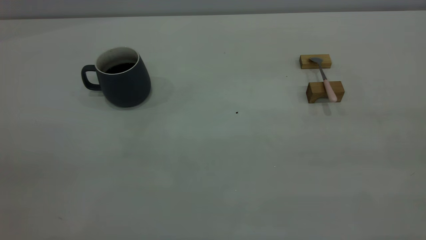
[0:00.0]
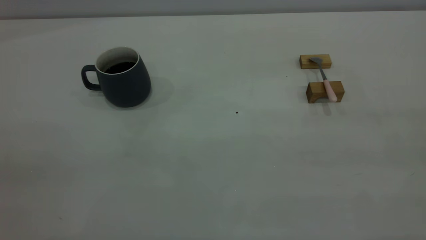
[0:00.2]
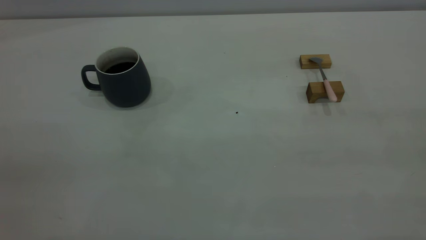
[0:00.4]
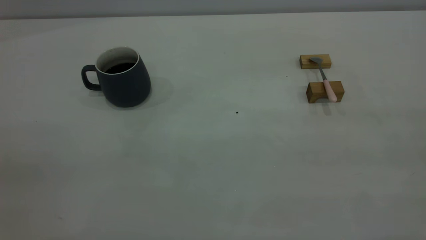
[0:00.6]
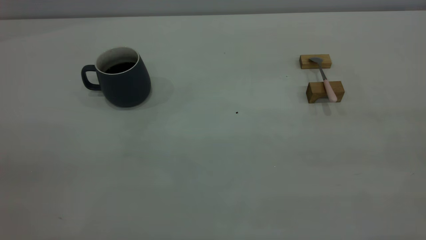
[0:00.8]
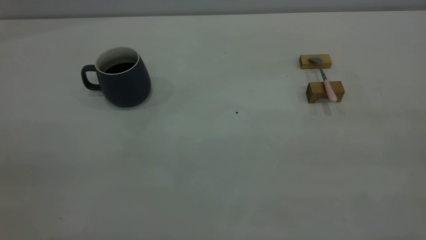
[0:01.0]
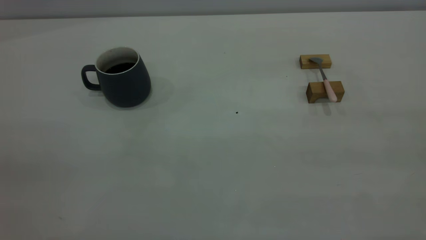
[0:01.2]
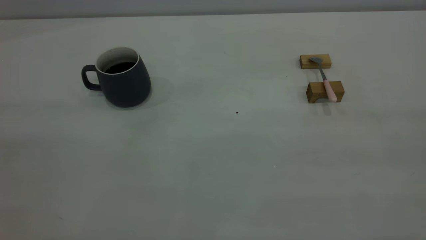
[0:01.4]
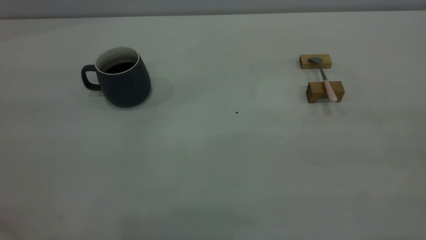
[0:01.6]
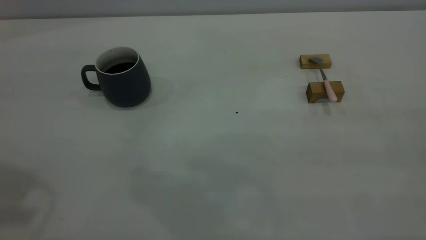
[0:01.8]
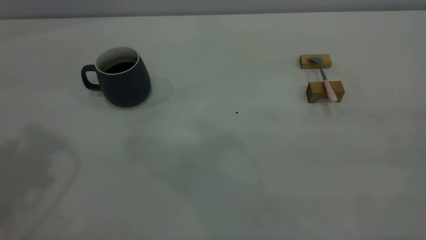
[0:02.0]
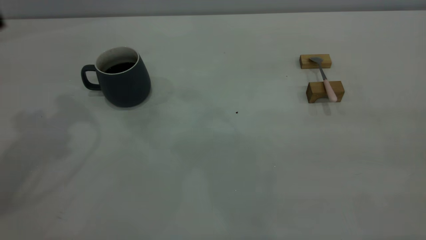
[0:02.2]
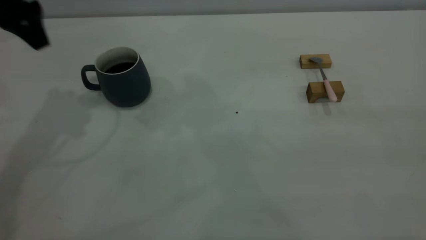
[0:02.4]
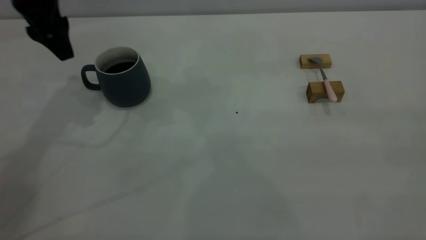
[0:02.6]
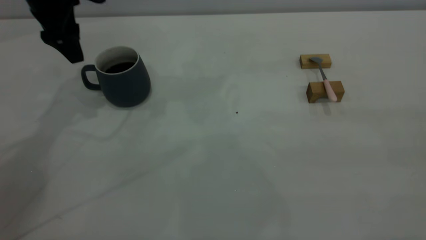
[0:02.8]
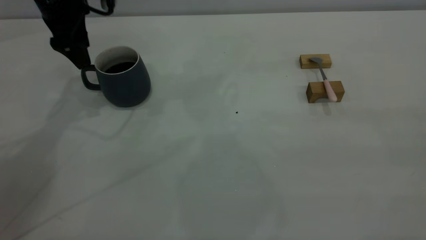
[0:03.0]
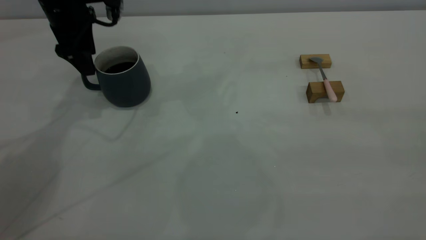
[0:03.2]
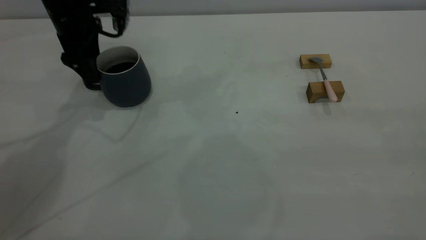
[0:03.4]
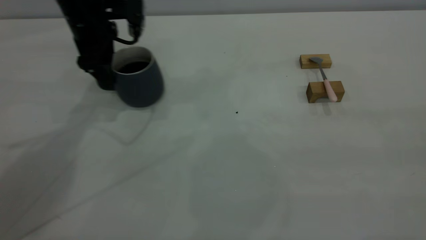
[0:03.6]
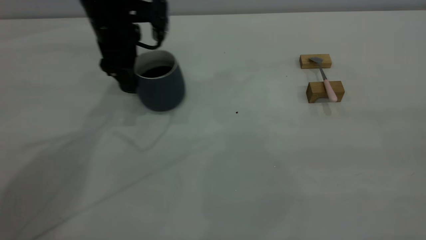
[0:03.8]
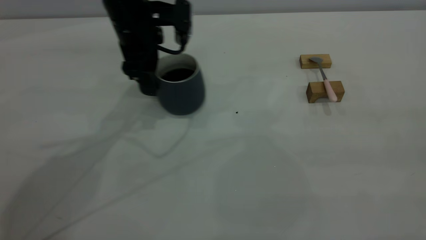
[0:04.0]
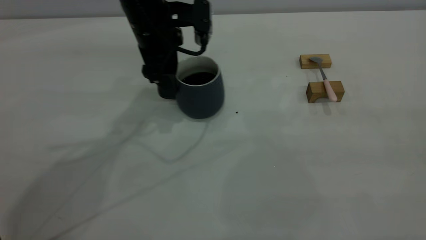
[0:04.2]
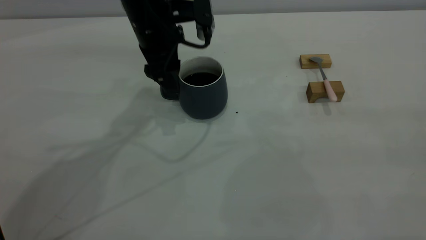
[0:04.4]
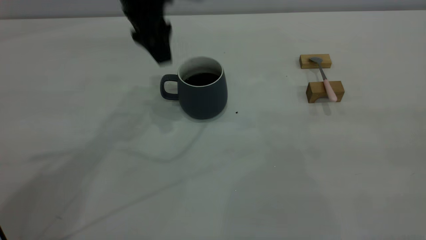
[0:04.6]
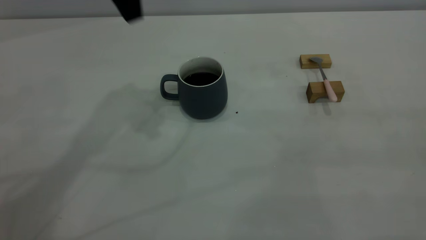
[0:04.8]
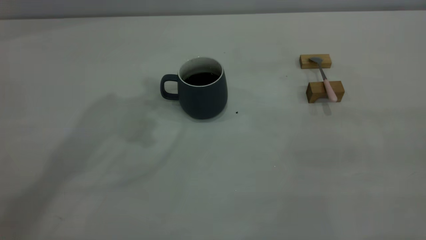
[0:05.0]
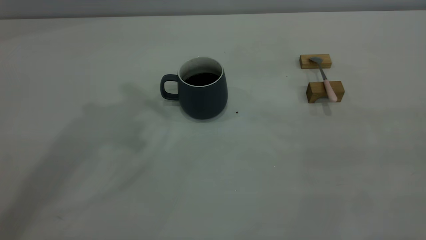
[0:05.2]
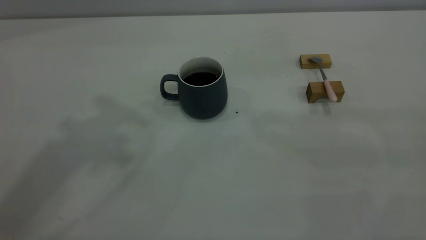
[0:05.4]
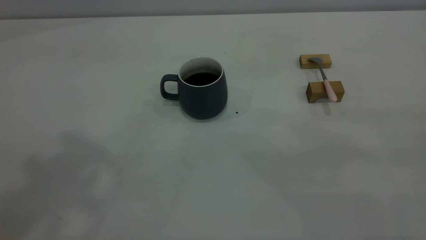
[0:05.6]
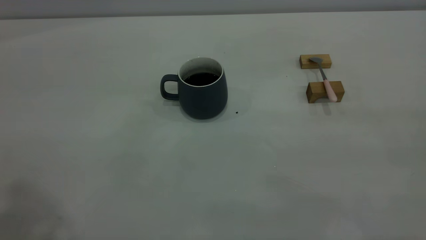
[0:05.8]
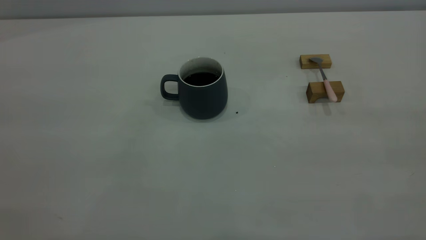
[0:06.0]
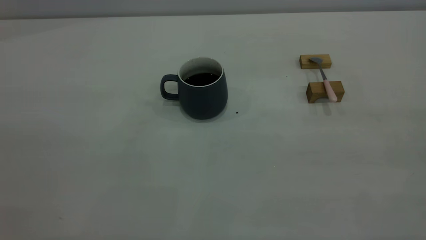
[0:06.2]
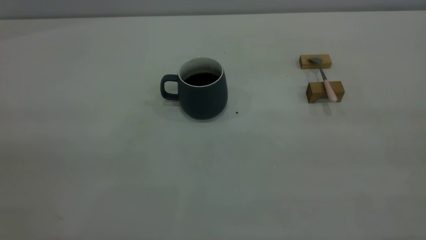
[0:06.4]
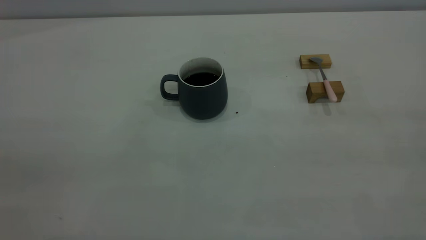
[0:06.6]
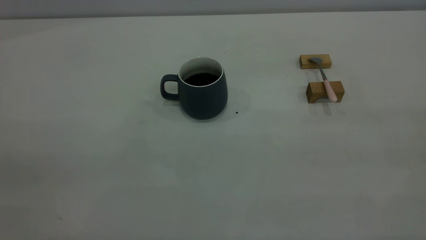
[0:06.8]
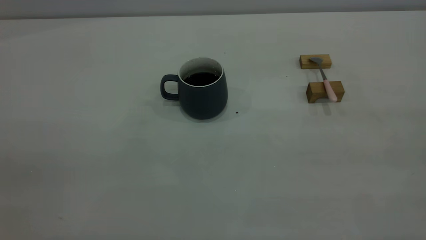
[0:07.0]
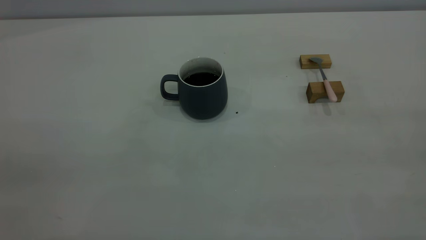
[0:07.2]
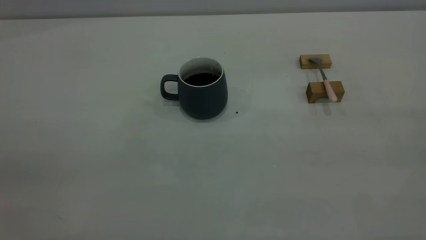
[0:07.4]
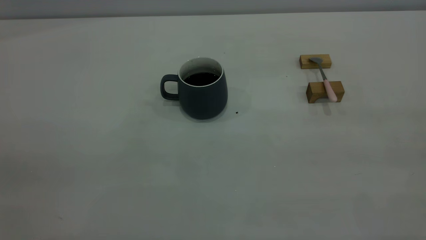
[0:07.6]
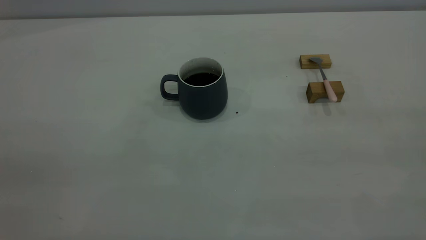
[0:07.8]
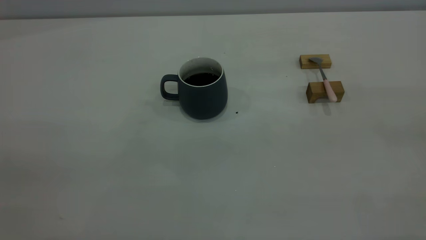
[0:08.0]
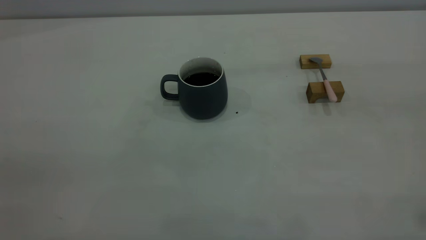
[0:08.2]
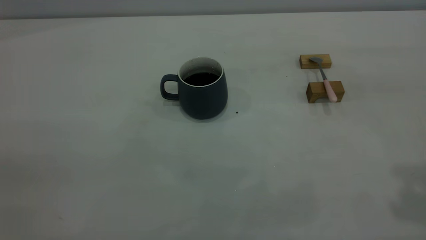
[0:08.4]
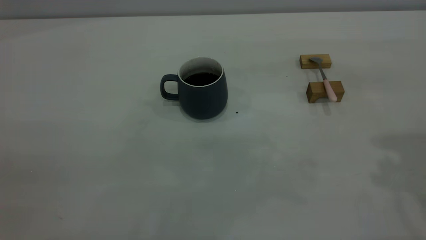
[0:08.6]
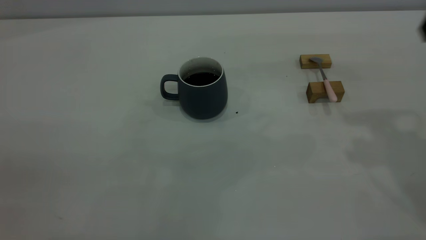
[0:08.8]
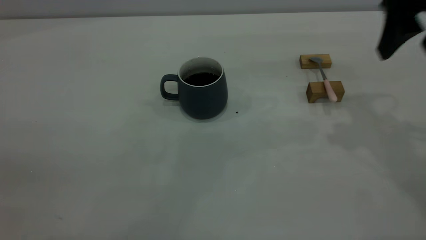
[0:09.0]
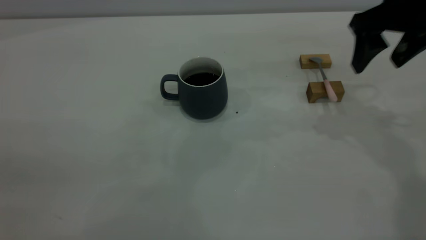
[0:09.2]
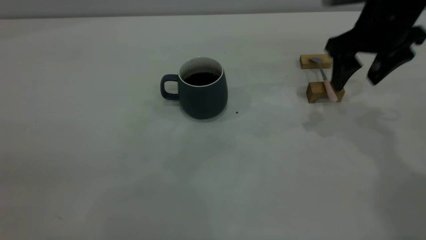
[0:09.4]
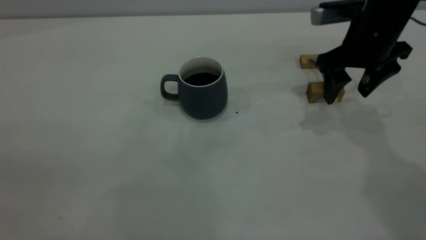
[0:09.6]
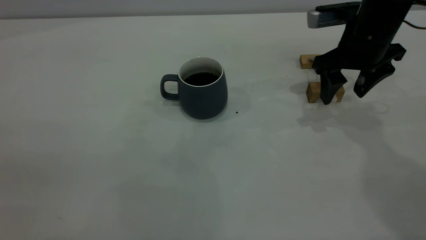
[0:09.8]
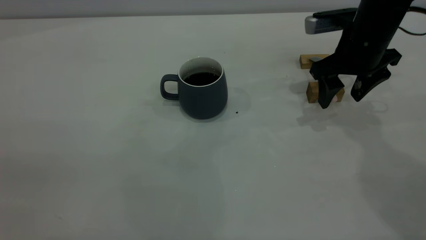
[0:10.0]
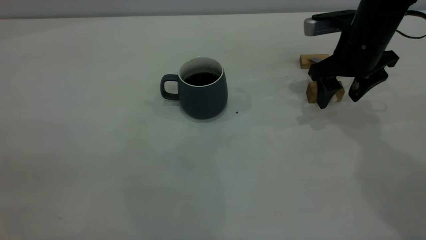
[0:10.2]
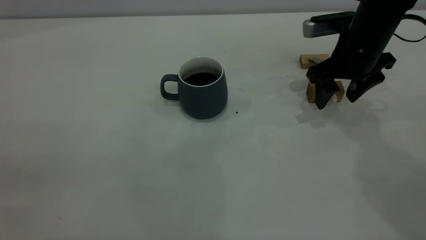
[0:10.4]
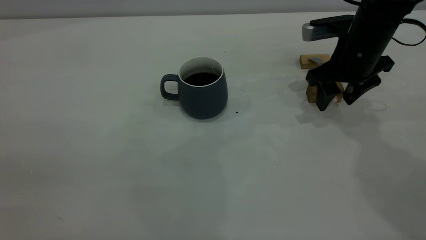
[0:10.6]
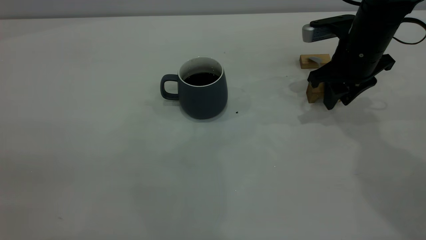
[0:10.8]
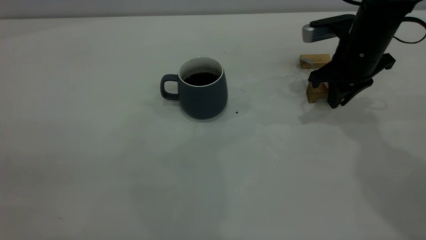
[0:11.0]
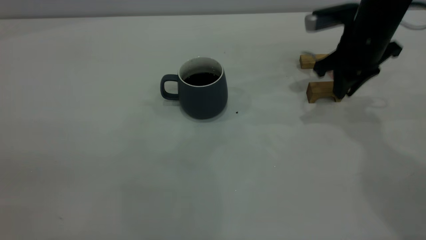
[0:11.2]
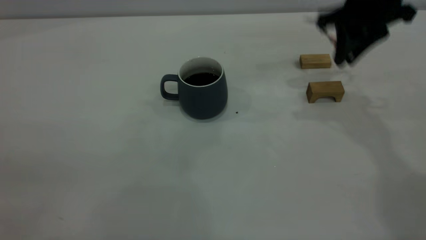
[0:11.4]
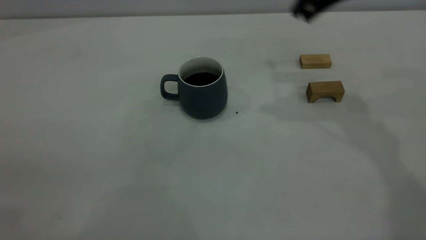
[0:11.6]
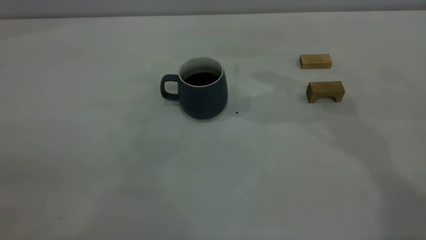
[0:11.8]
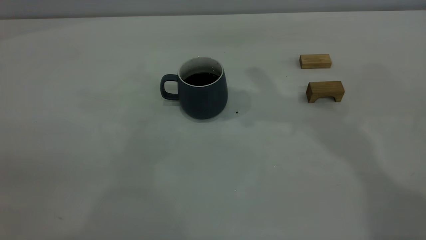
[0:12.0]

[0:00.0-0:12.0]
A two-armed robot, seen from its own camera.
Step, 0:00.0 to 0:04.6: Move the cup with coffee to the center of view.
Step, 0:04.8 to 0:11.2: Pick up the spoon.
0:01.6 to 0:03.0: The left gripper is displaced forward and downward by about 40 cm, and opens its fingers.
0:03.0 to 0:04.4: The left gripper moves to the right, roughly 15 cm.
0:04.4 to 0:06.0: The left gripper moves backward, upward and to the left, approximately 50 cm.
0:07.6 to 0:09.0: The right gripper heads forward, covering about 35 cm, and opens its fingers.
0:09.0 to 0:10.4: The right gripper heads downward and forward, covering about 15 cm.
0:10.4 to 0:12.0: The right gripper moves upward and to the left, about 25 cm, and closes its fingers.

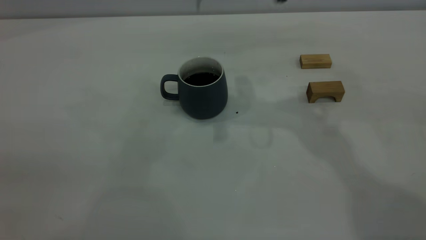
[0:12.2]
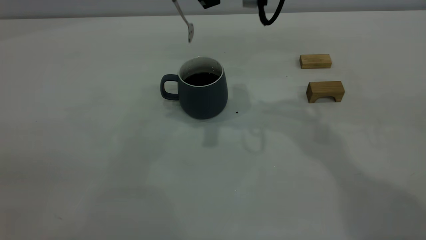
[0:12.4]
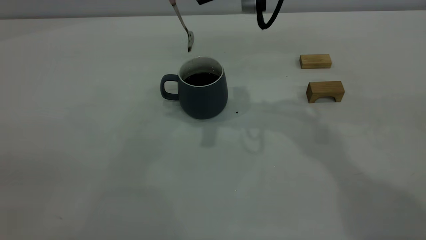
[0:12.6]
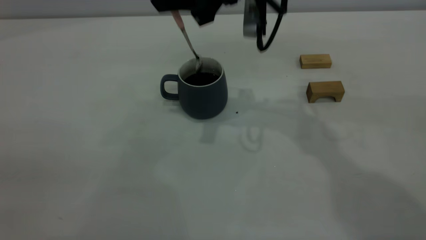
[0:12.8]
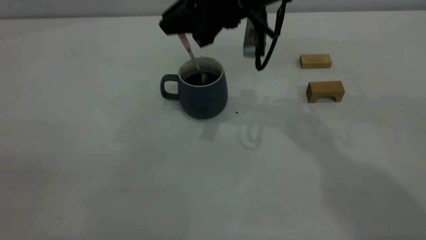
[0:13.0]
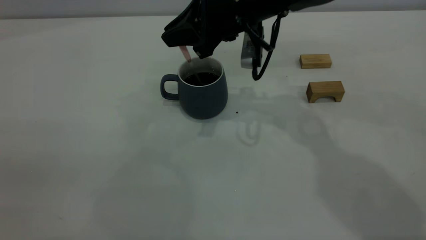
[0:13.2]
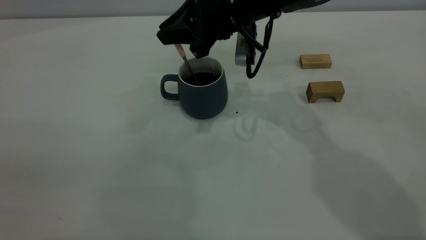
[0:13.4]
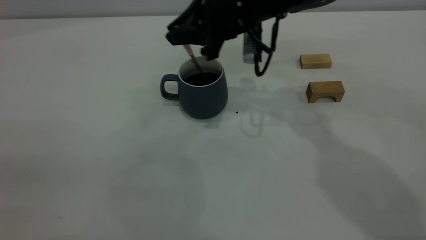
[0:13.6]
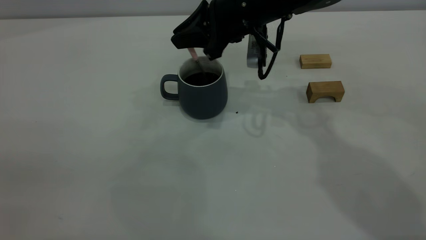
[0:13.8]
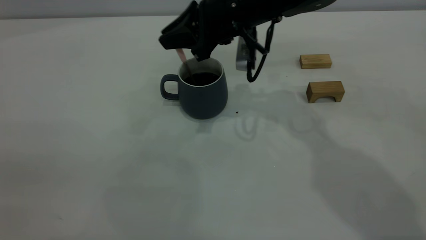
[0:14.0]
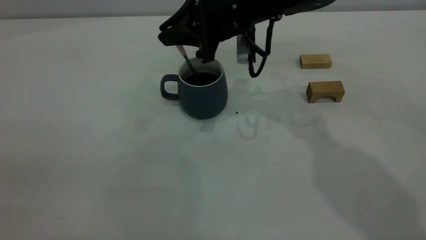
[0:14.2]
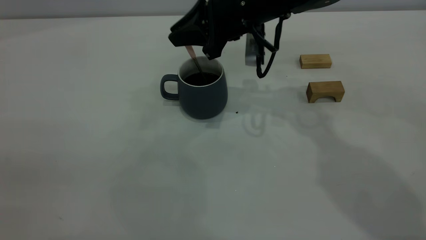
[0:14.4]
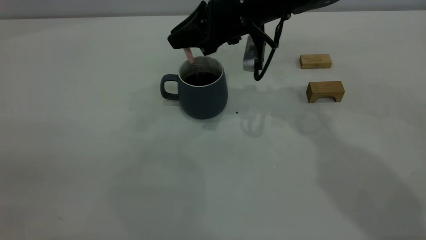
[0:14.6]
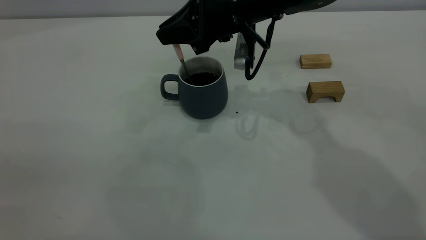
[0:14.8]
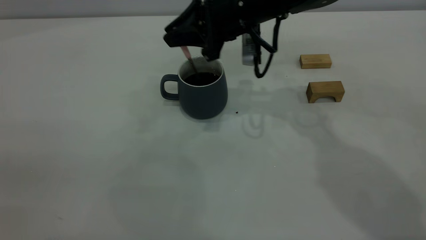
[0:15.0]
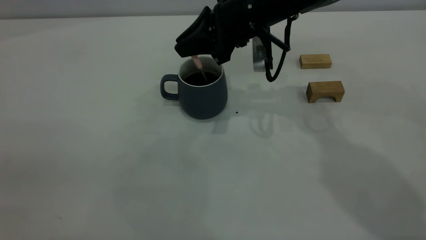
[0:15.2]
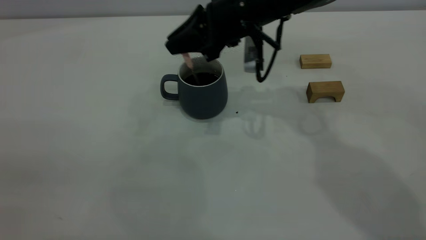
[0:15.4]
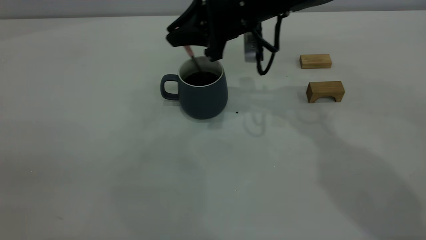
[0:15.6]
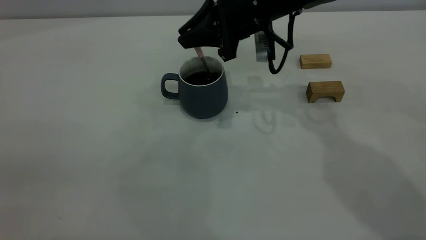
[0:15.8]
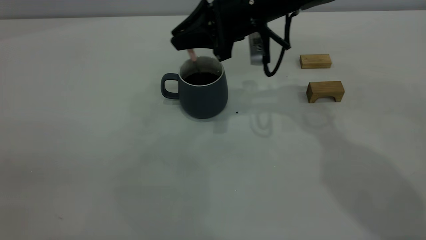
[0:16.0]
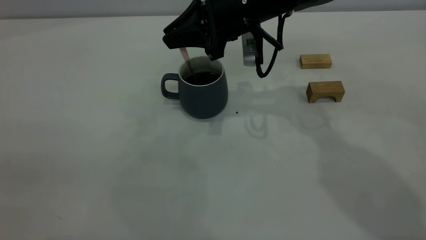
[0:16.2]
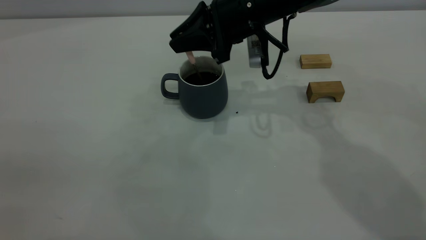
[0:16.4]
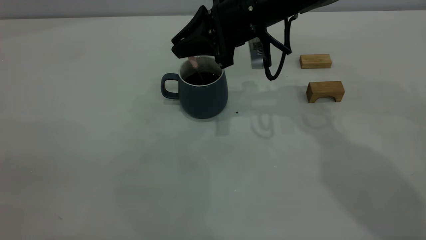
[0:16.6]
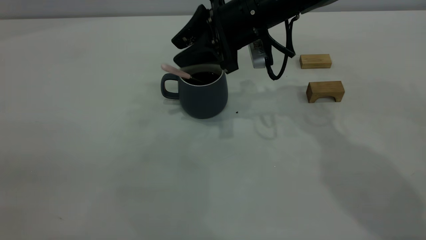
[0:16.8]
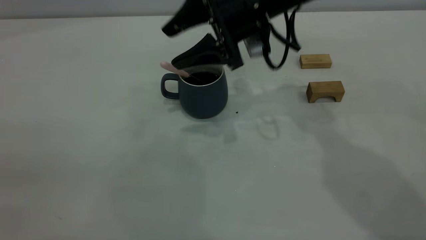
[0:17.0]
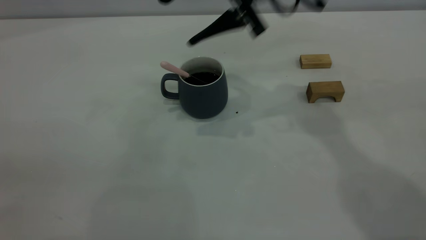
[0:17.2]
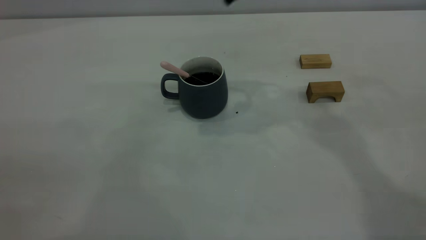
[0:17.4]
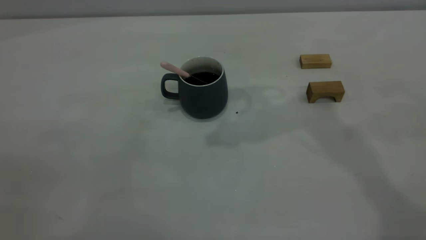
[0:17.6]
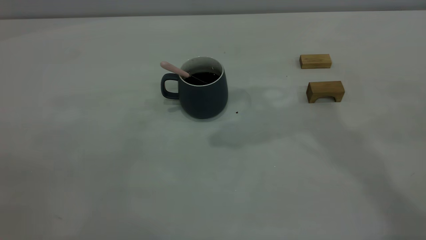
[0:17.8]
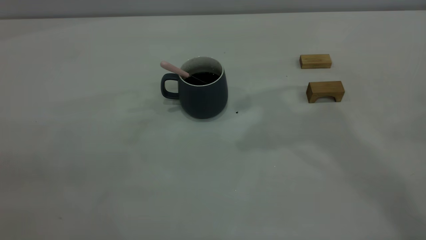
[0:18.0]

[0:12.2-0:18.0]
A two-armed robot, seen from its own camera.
Step, 0:12.2 to 0:17.0: Stir the coffee in the cup.
0:12.2 to 0:13.6: The right gripper travels downward by about 10 cm.
0:13.6 to 0:16.6: The grippers make only small movements.
0:16.6 to 0:18.0: The right gripper goes approximately 25 cm upward, and opens, then closes again.
